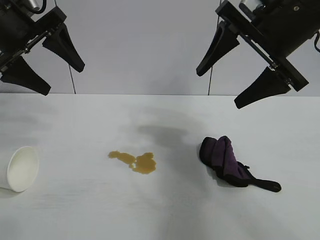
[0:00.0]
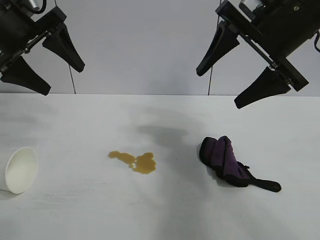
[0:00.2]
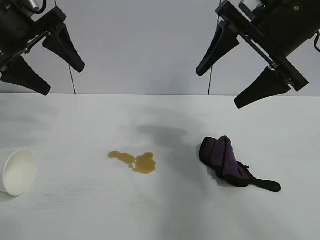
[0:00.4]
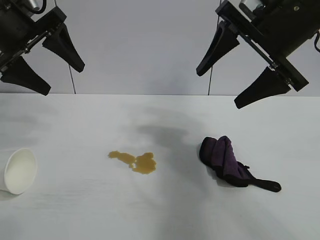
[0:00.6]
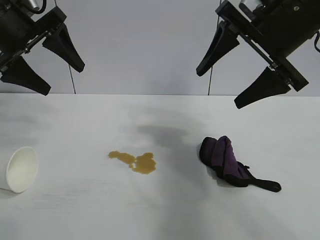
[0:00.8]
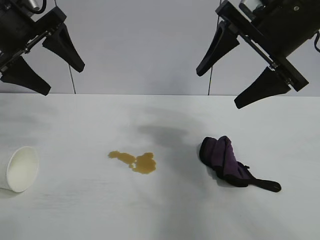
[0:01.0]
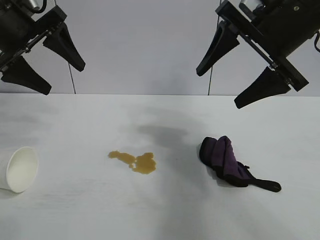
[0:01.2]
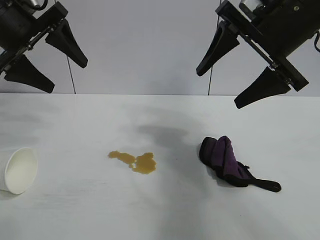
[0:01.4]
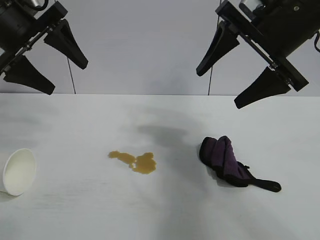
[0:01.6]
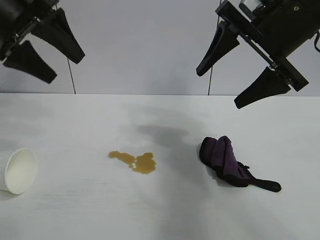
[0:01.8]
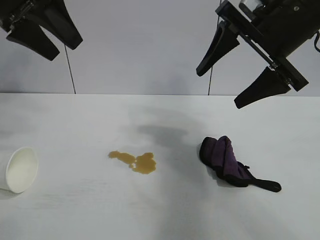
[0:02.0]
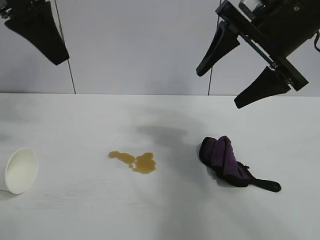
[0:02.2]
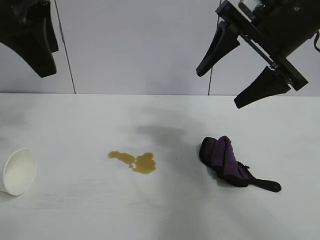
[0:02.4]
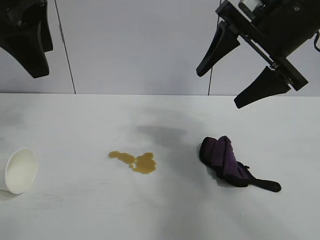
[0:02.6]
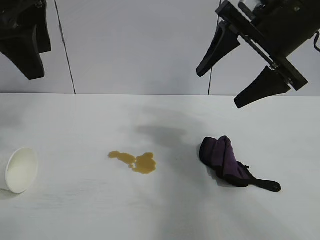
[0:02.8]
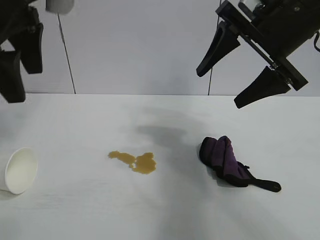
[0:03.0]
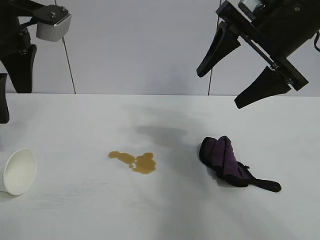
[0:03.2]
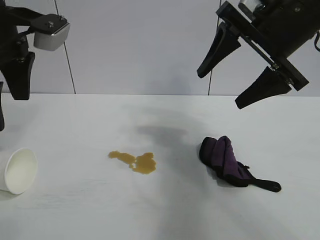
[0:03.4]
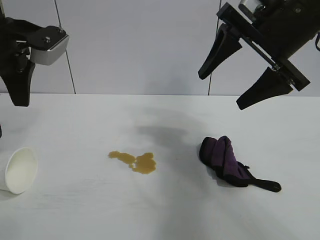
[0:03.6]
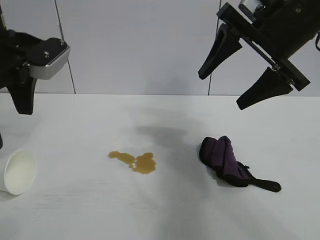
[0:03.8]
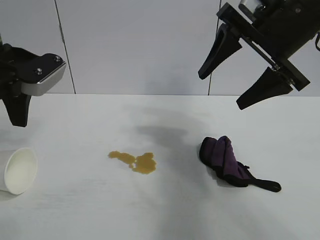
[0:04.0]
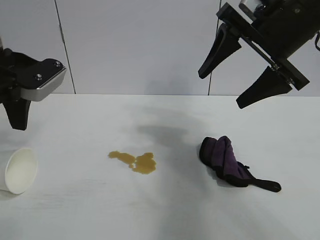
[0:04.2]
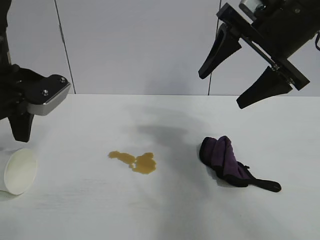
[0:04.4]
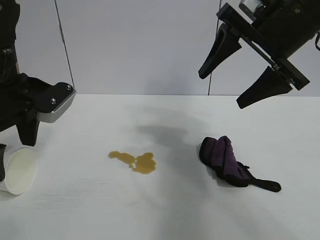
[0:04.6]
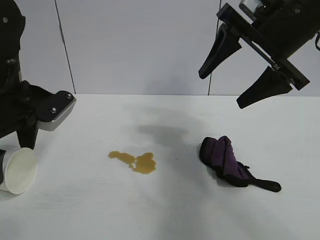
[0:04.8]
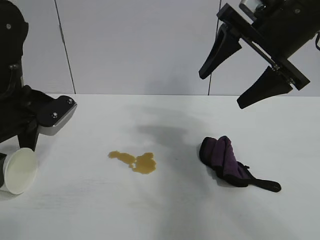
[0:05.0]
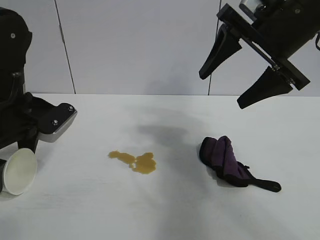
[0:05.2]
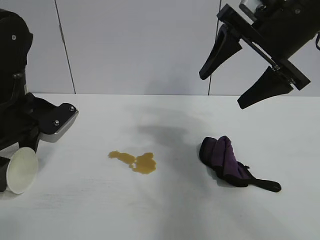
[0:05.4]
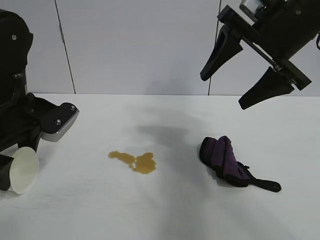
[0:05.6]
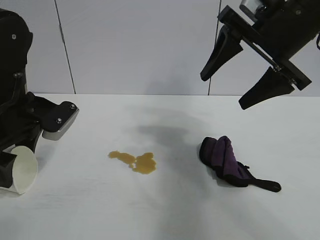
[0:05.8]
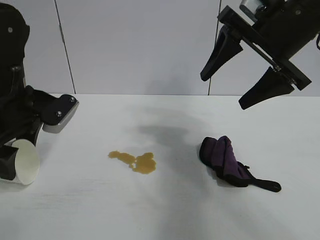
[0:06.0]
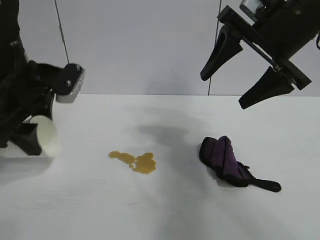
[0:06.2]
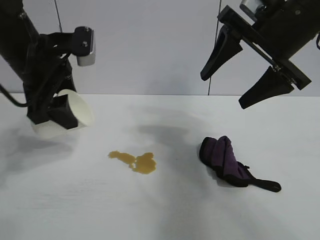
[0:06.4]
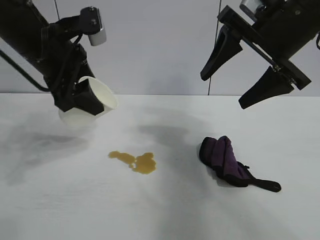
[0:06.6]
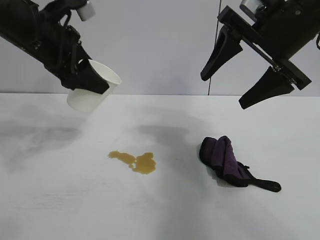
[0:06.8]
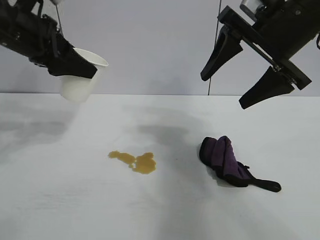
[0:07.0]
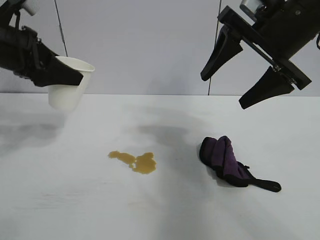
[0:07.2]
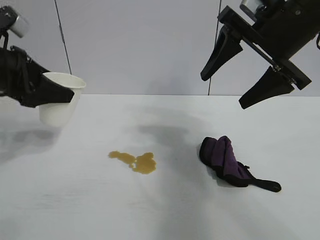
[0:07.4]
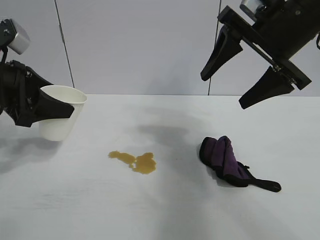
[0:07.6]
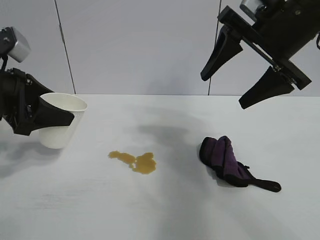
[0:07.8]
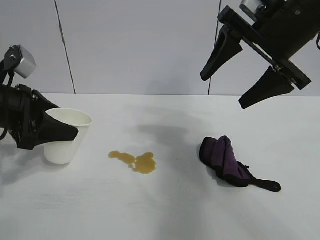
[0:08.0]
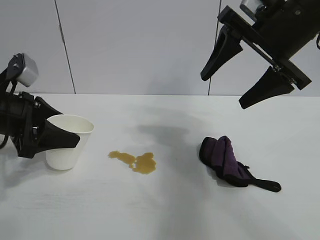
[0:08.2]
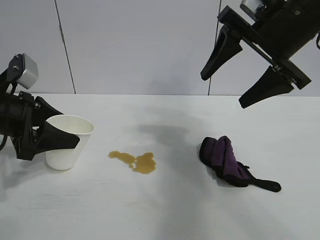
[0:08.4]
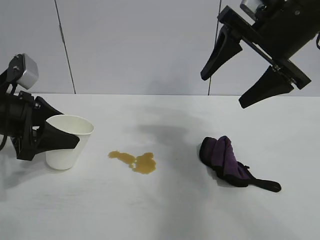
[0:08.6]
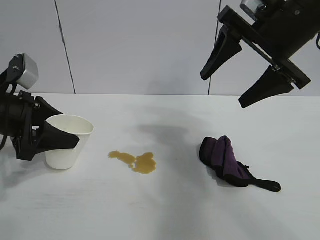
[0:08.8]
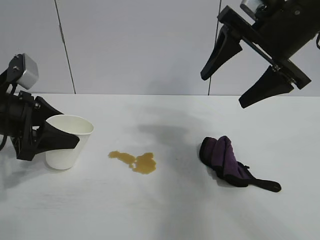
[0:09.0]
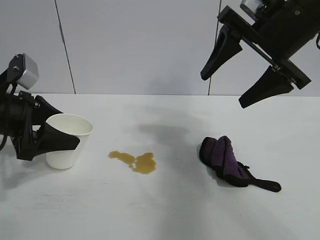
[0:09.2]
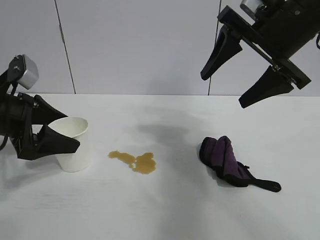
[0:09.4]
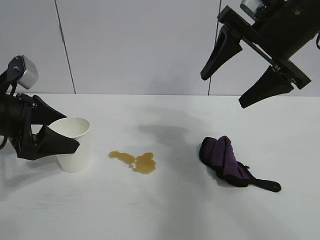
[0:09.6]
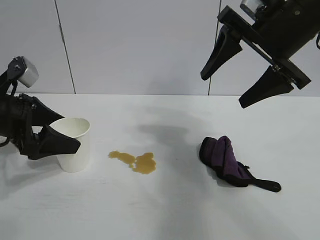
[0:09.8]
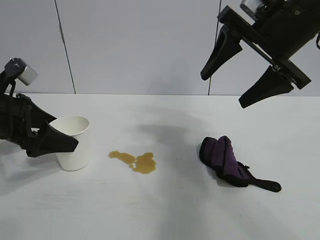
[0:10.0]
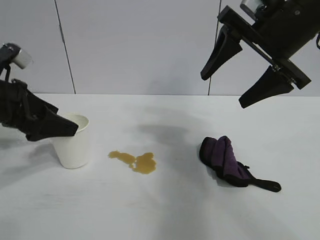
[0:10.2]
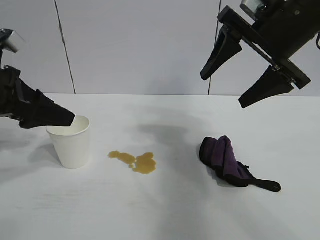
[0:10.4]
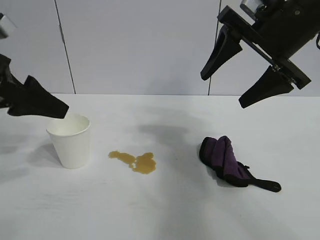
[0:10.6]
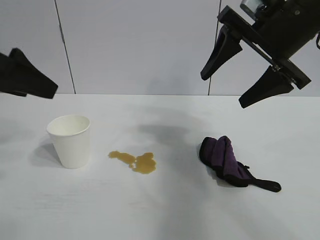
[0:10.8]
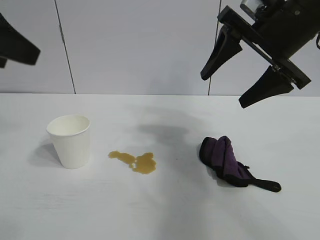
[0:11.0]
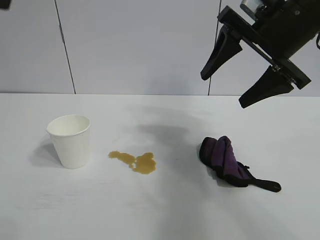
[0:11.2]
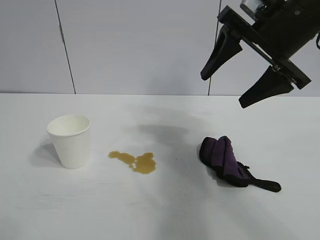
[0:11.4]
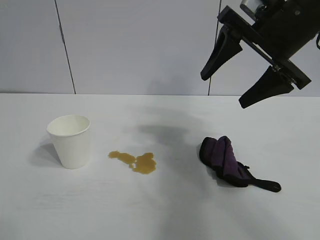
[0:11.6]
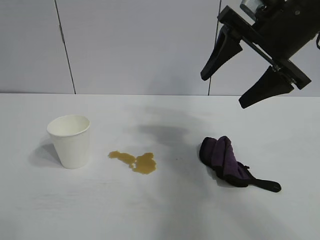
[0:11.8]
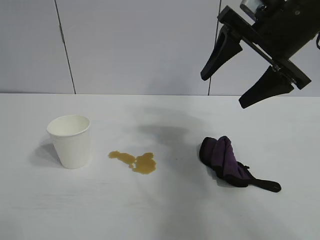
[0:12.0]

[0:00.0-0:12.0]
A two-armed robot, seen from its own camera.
Task of the whole recording: the left gripper pick up the fallen cup and place it upright, the right gripper grasp the black rag and wipe the stain on the table, the right gripper put the black rag back in its original position.
Step, 0:01.2 to 0:05.8: Grasp the paper cup with left gripper.
Step, 0:06.0 to 0:09.4: Stand the paper cup upright with left gripper.

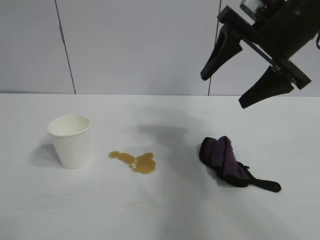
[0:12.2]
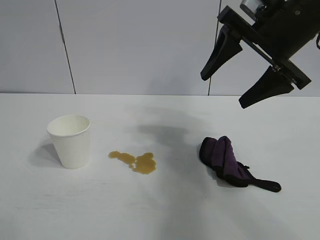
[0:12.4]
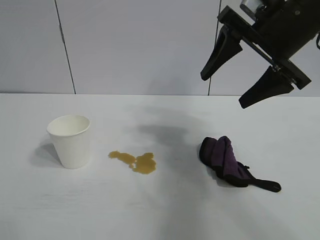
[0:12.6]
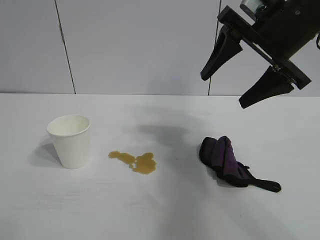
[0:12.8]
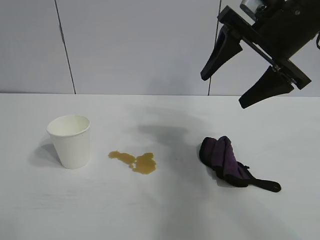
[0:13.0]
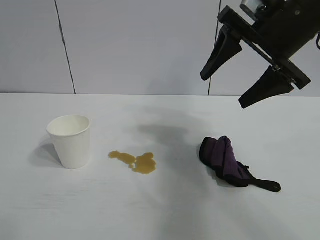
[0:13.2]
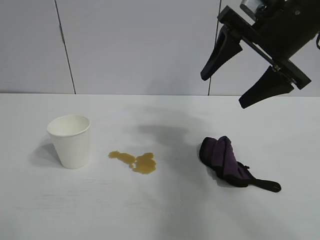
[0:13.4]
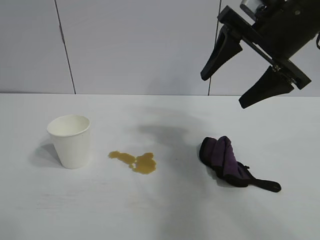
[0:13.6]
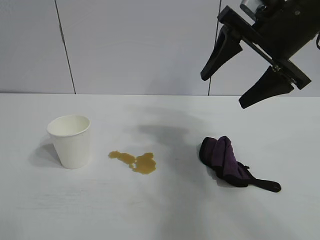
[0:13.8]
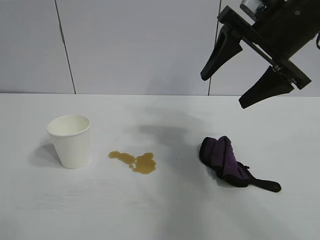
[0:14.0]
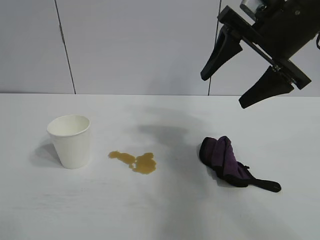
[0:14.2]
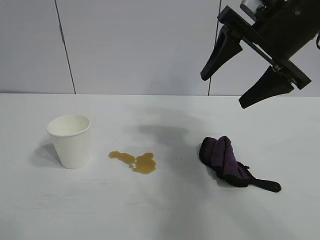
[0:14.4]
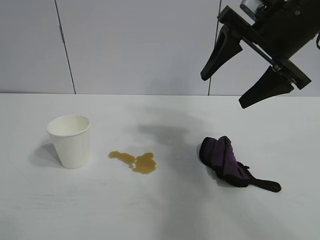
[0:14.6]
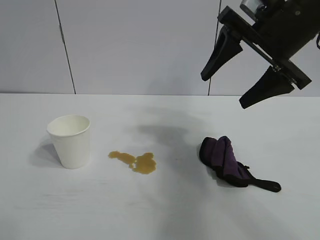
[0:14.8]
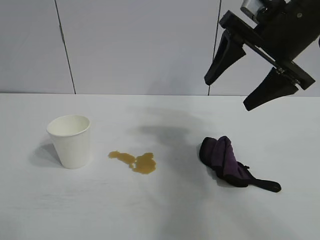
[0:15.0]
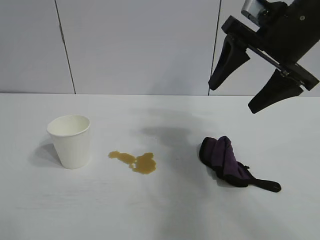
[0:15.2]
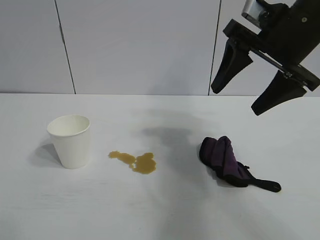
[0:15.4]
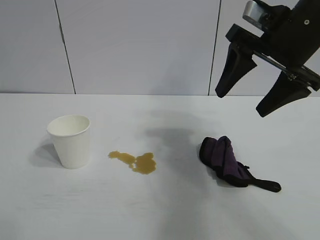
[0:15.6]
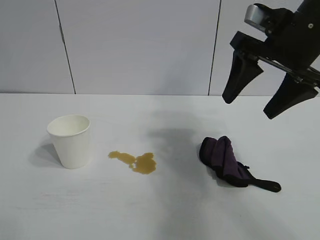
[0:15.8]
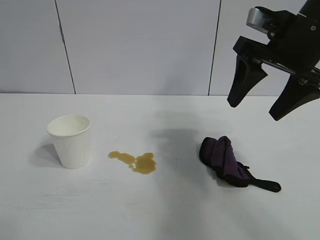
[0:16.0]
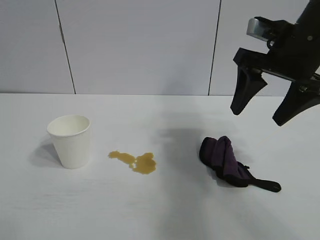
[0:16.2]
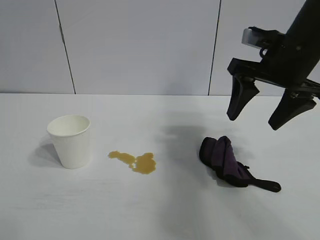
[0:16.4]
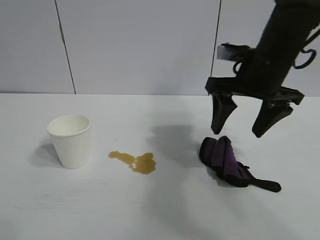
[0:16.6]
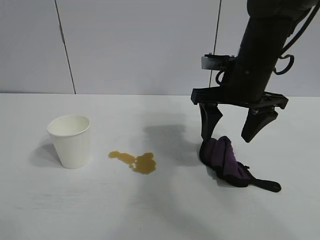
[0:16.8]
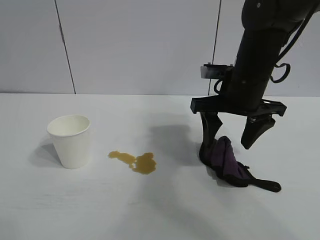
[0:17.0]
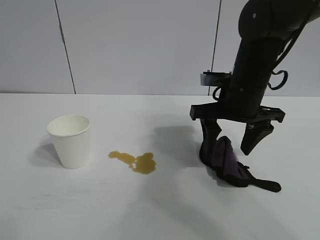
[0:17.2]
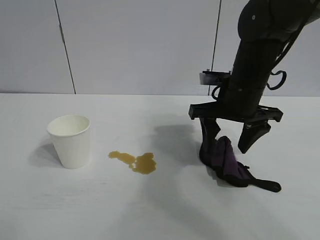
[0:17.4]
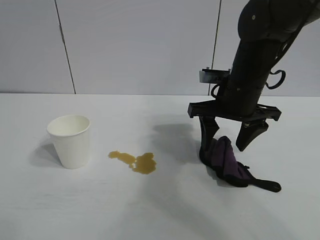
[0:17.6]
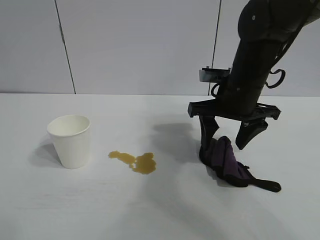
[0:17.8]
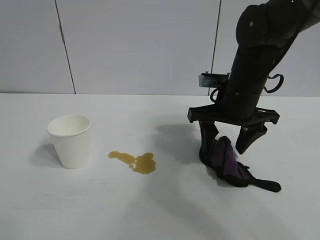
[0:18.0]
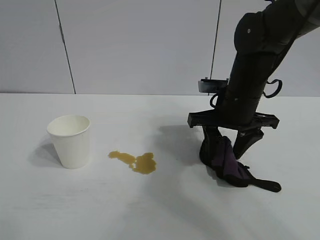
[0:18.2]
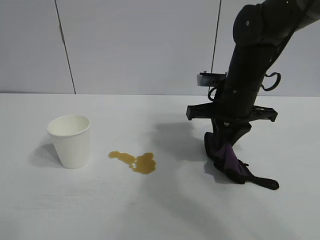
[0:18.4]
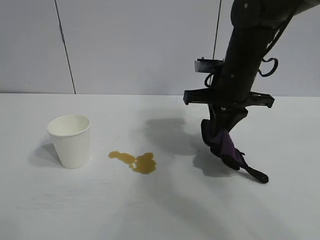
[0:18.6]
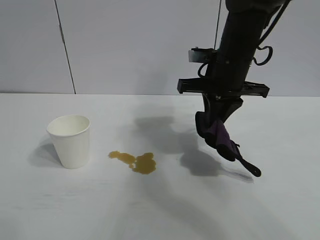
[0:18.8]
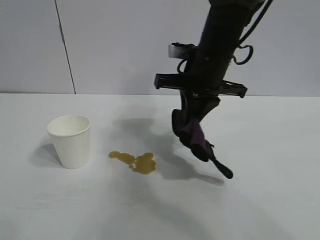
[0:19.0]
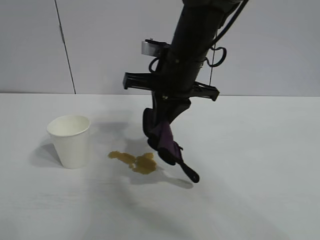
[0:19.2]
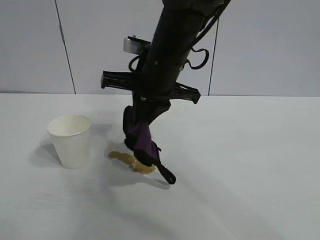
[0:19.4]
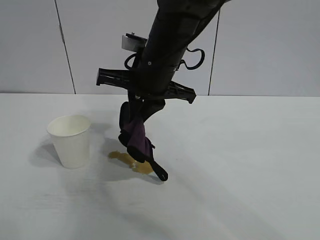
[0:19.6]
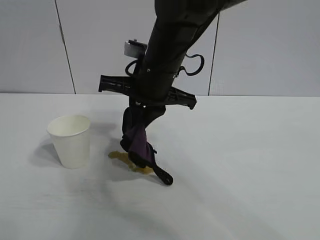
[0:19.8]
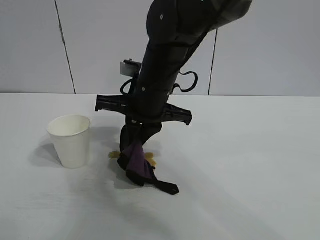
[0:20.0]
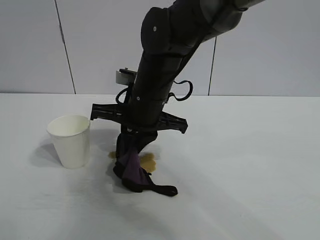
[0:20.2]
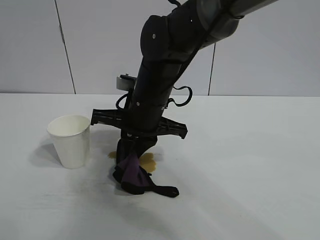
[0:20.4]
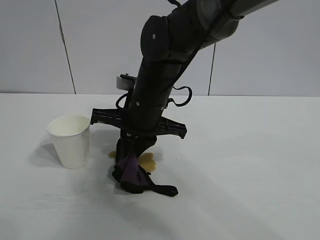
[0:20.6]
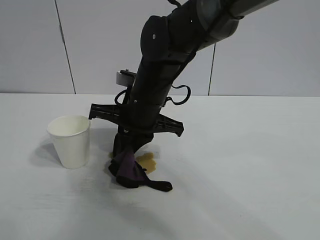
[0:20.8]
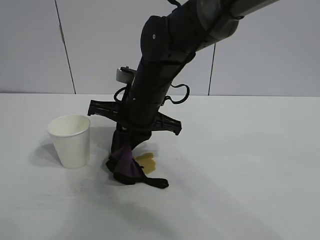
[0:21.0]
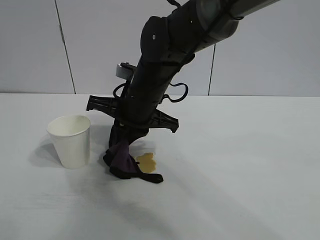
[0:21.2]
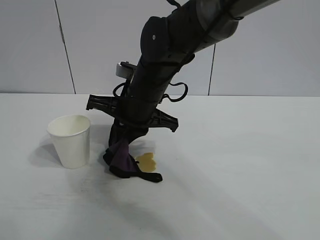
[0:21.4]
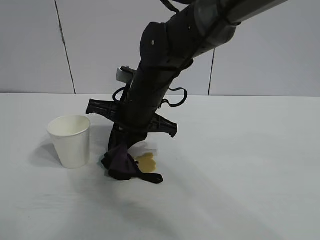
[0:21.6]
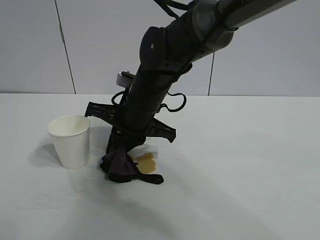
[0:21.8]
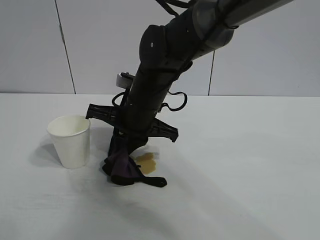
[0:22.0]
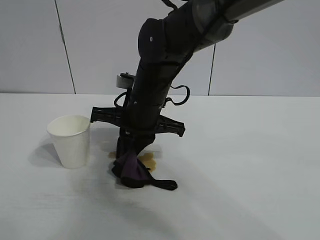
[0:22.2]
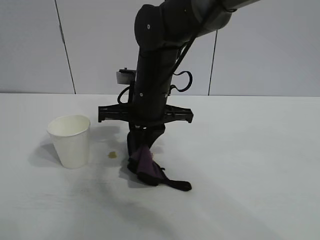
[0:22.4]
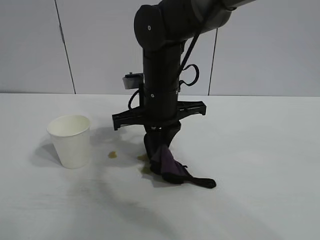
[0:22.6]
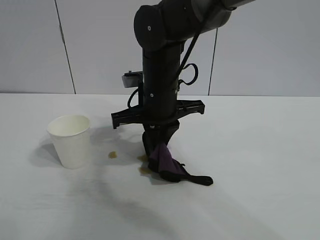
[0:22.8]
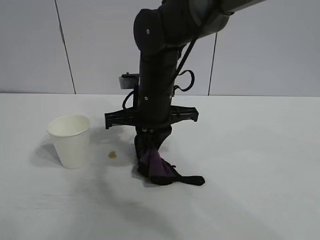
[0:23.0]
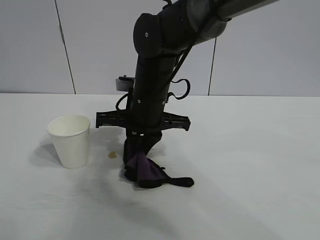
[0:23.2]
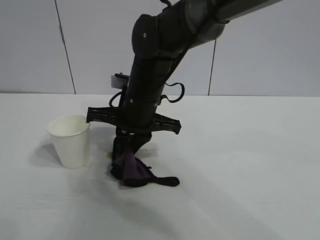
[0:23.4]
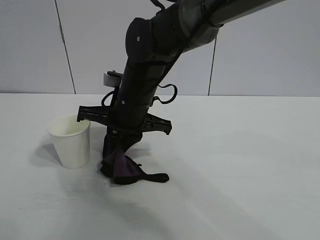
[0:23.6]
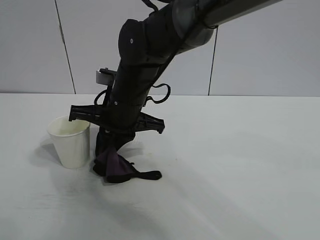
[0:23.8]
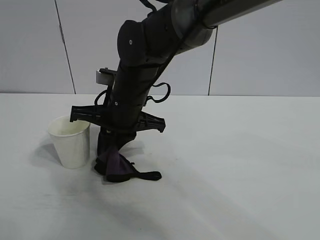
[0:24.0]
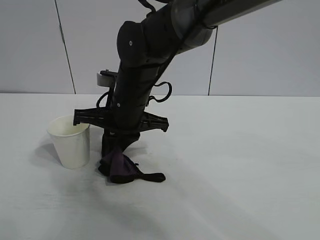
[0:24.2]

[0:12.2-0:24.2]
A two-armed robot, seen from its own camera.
Task of the whole recording: the left gripper pick up the fallen cup and place it upright, the right gripper grasp the black rag and wipe the stain on the table, the right gripper put the black rag back in its original position.
Step, 0:12.2 to 0:18.2: Grasp the rag with right gripper.
